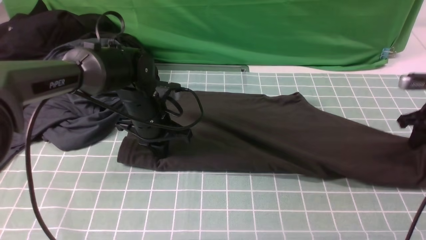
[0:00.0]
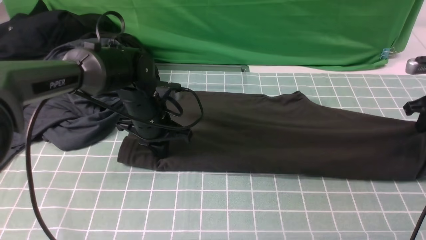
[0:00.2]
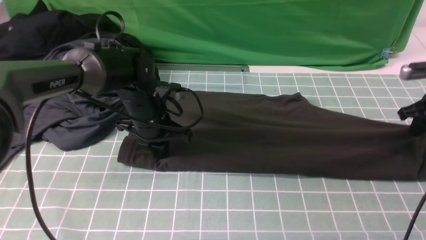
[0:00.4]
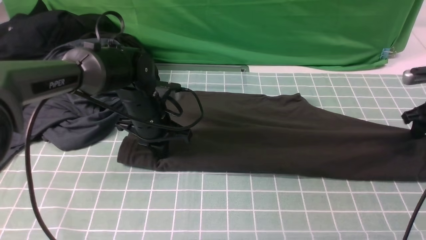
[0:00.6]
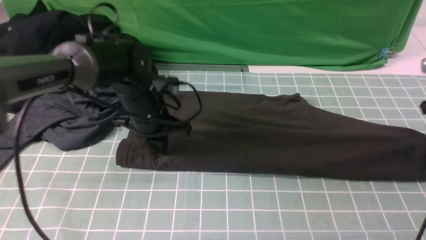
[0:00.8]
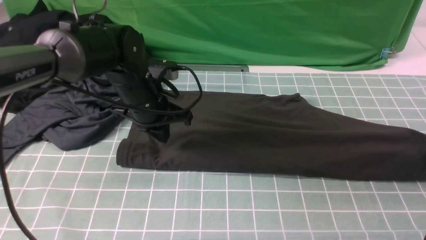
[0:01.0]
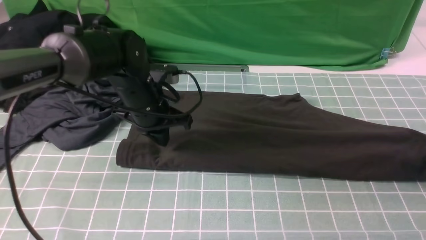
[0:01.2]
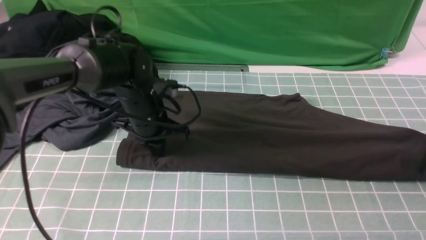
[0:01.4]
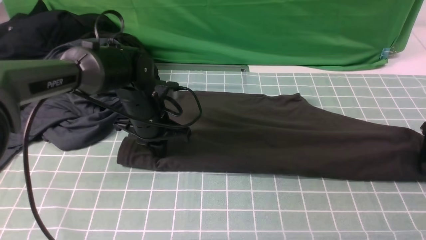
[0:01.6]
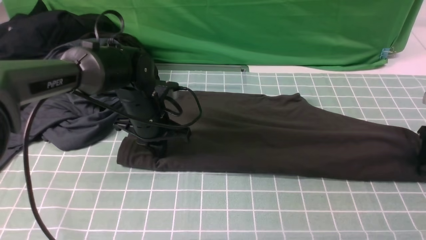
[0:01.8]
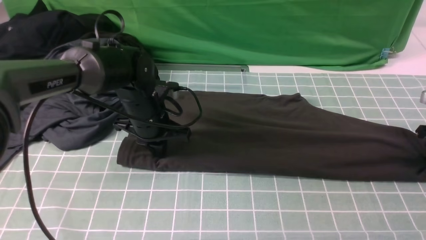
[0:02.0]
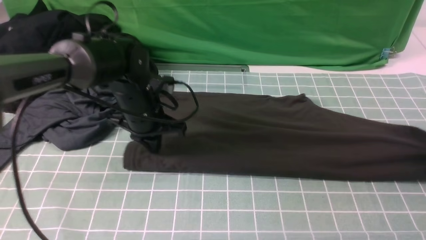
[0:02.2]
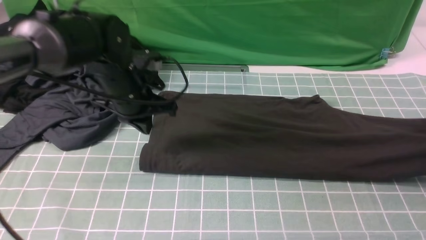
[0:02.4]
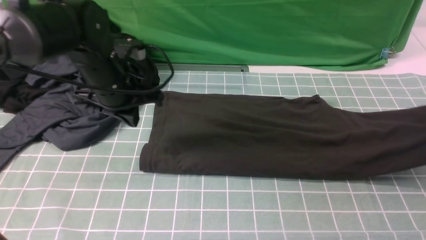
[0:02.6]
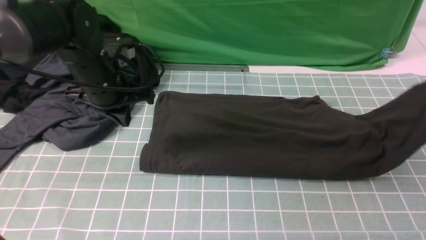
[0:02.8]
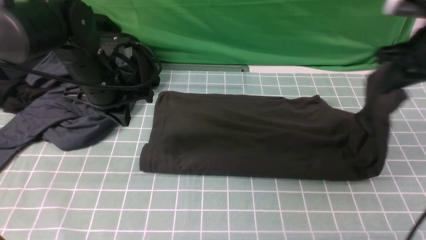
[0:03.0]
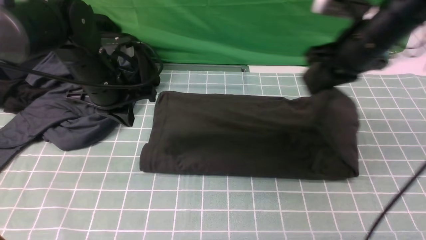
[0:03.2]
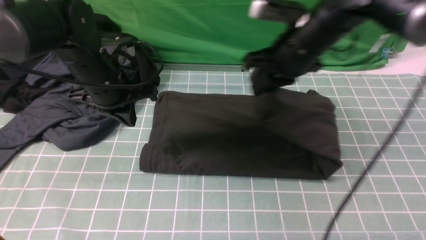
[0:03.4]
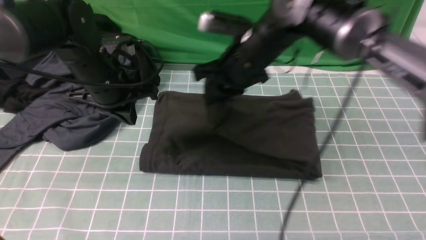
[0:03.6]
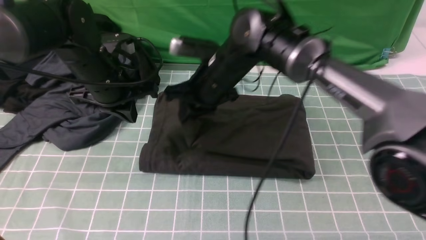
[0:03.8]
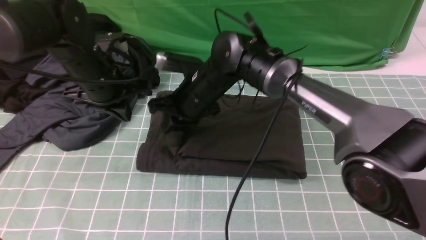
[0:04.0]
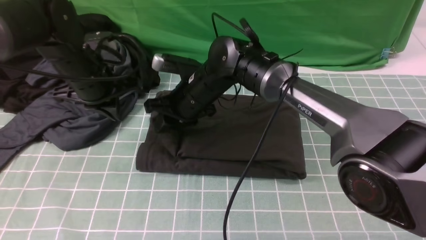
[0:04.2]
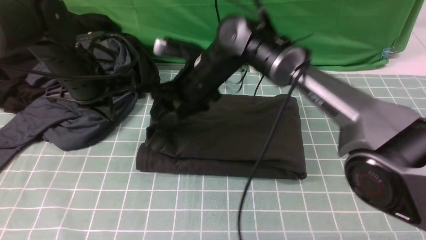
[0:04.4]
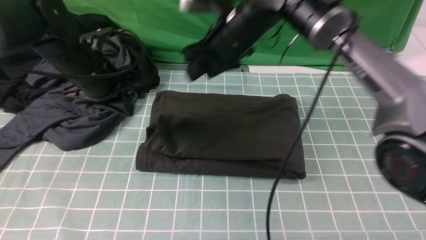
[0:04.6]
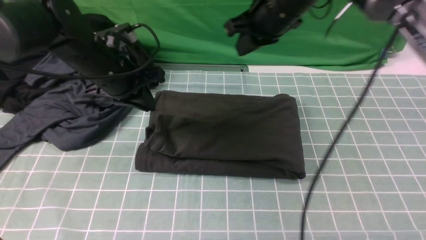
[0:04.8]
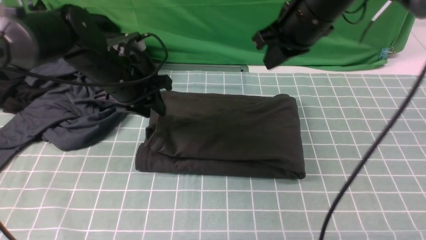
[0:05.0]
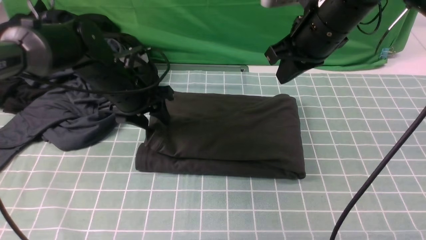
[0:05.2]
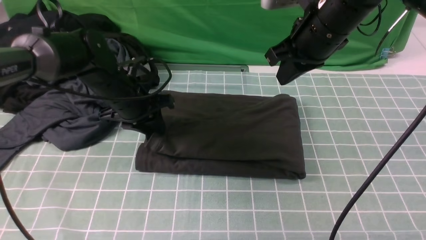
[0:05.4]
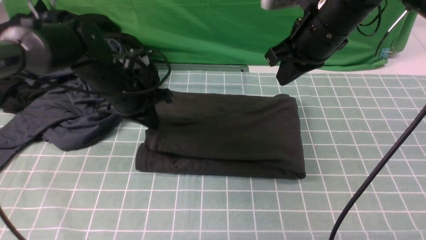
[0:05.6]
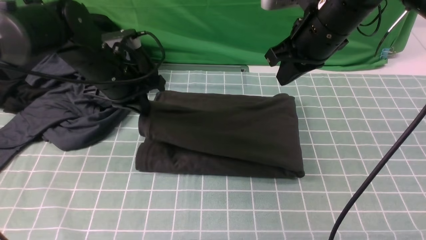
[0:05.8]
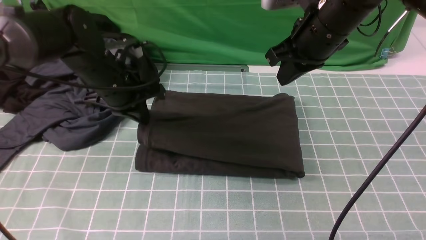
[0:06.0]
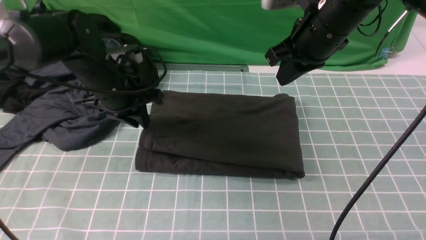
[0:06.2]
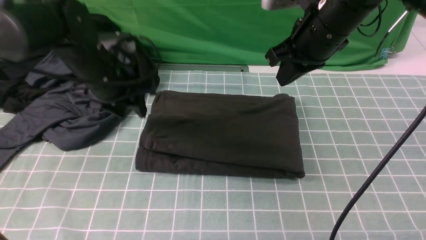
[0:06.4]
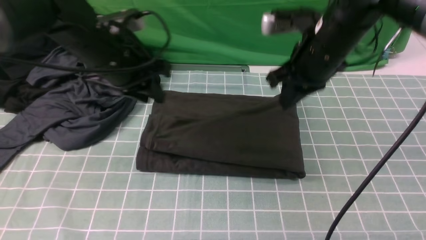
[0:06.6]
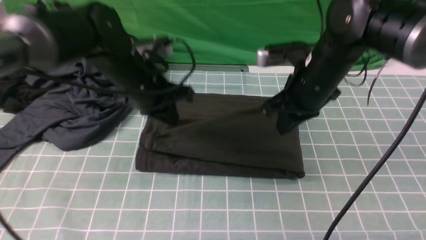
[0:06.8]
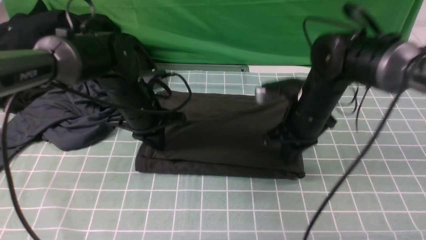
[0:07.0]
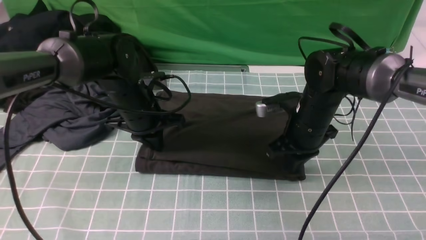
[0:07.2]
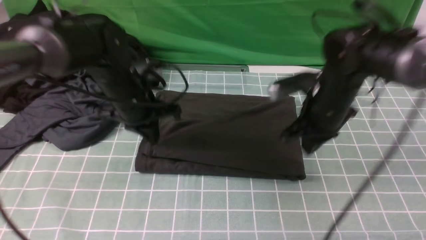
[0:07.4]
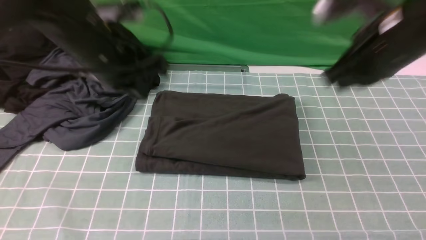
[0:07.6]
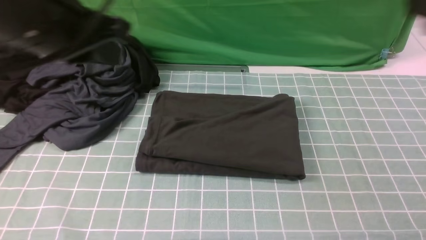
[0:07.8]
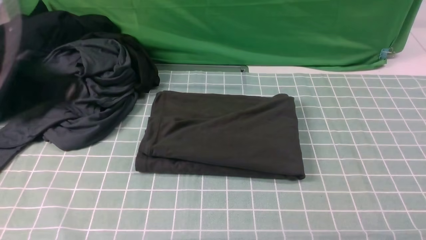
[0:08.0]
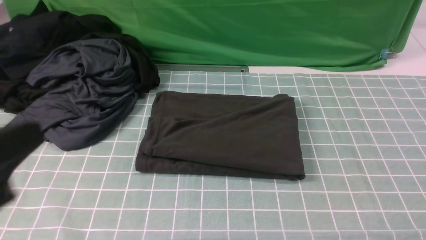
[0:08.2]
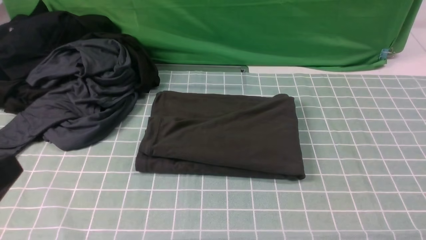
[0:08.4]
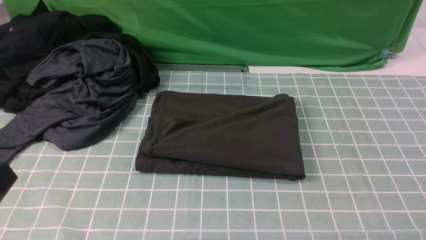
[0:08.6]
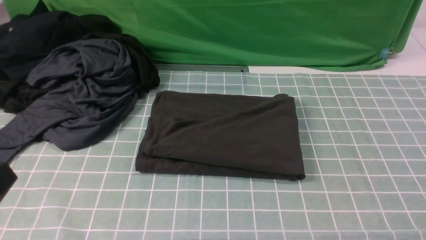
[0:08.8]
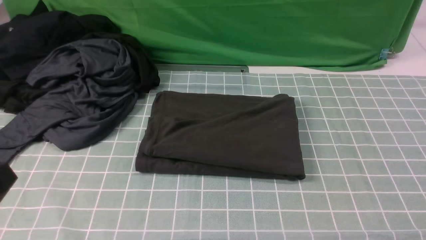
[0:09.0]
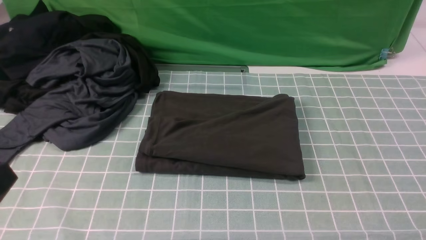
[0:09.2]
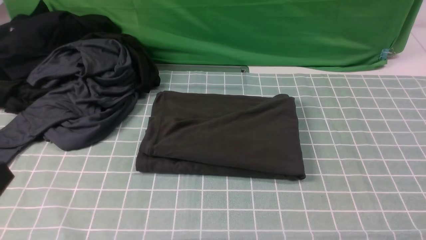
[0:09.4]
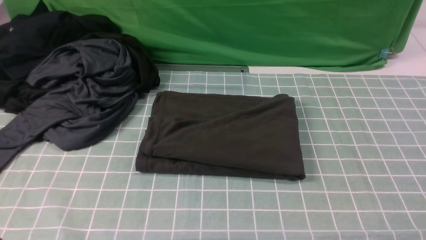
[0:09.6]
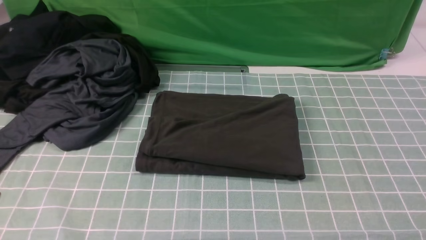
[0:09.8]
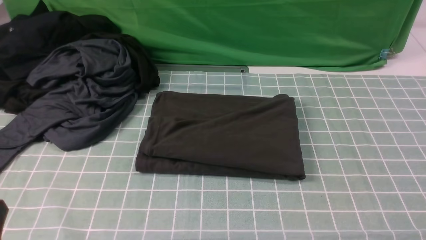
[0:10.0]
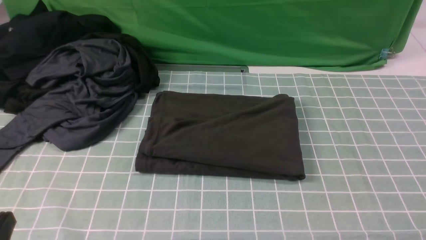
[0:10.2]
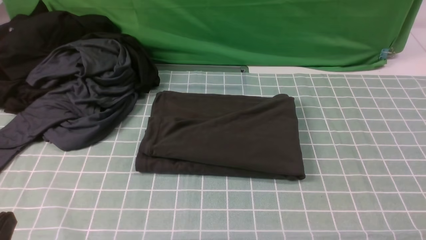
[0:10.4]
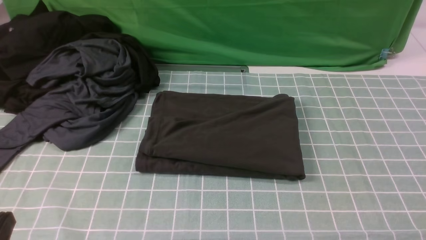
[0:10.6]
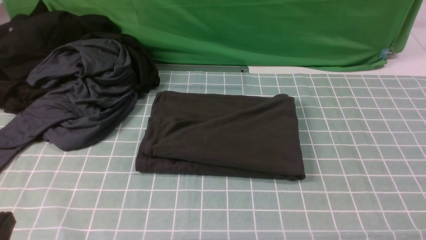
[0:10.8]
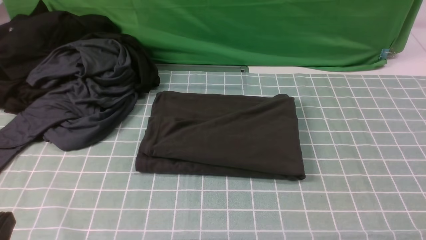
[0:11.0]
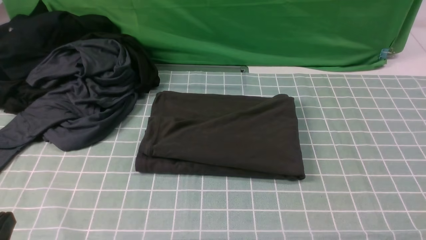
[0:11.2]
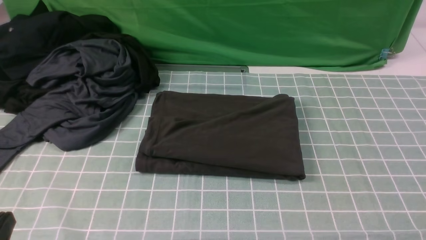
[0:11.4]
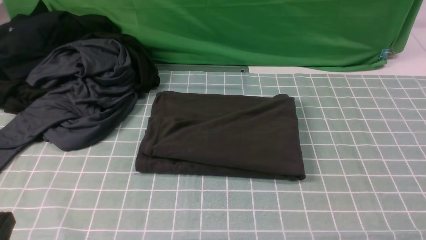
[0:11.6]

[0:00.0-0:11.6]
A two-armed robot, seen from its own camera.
Step, 0:00.0 to 0:02.2: use the right arm to clamp the right edge of the fabric.
Step, 0:02.4 to 0:05.0: use the right arm to drag the right edge of the fabric to the left and folds it over the left edge.
0:00.0 to 0:01.4: The right gripper moves some 5 cm, and opens up.
0:01.4 to 0:02.8: The left gripper is displaced upward and to the left by roughly 10 cm. Meanwhile the right gripper heads upward and to the left, covering some 15 cm, and closes.
0:02.8 to 0:04.4: The right gripper travels to the left by some 35 cm, and opens its fingers.
0:04.4 to 0:05.8: The right gripper heads to the right and upward, covering some 15 cm, and closes its fingers; the left gripper opens, then closes again.
0:05.8 to 0:07.2: The left gripper opens and closes again. Meanwhile the right gripper moves downward, approximately 15 cm.
0:07.2 to 0:08.8: The left gripper heads backward, covering about 35 cm. Meanwhile the right gripper goes about 40 cm backward, to the right and upward.
0:08.8 to 0:10.2: The left gripper is displaced downward by about 10 cm.

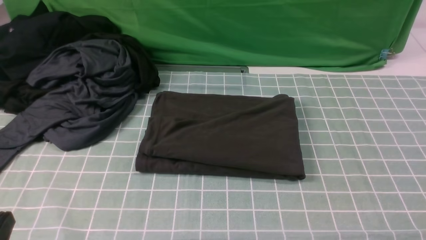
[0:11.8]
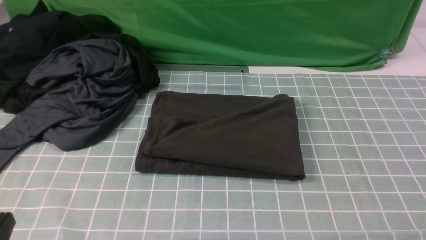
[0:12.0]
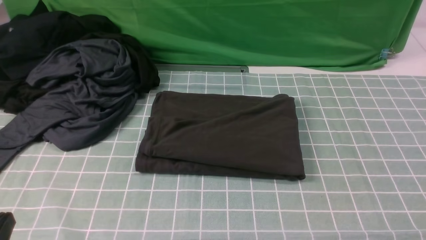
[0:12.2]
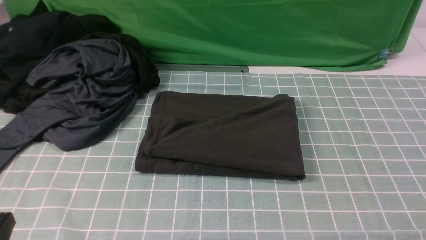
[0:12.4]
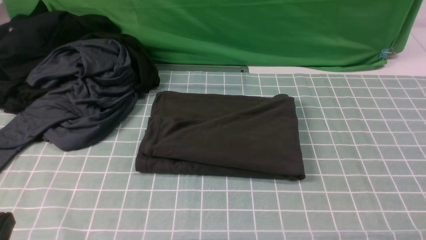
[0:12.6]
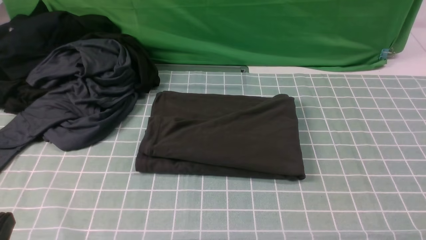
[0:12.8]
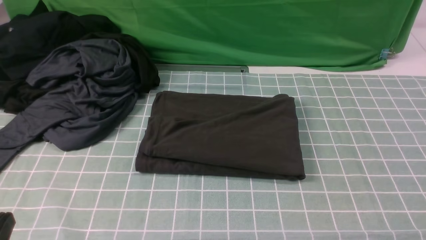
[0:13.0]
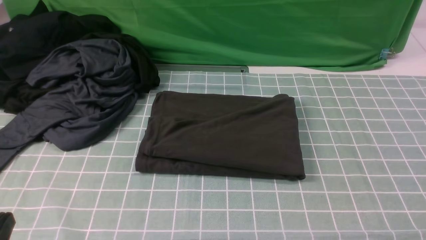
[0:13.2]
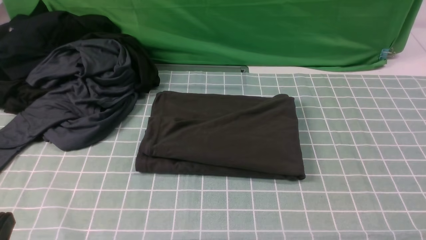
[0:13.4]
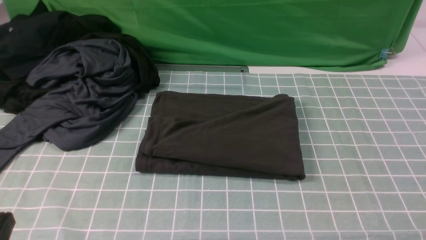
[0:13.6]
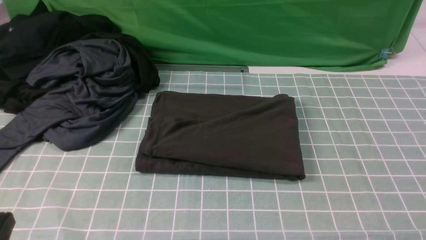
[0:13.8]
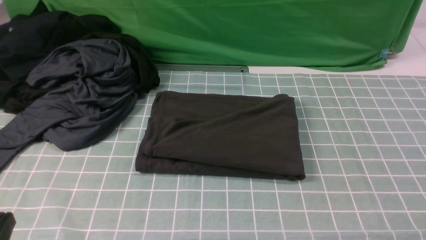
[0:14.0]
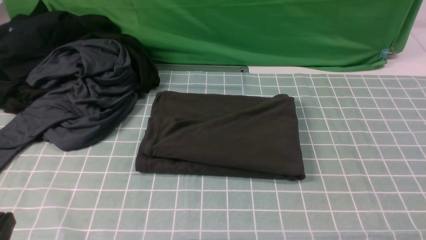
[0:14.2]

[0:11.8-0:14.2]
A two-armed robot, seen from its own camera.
0:11.8 to 0:14.2: Both grippers stay about where they are.

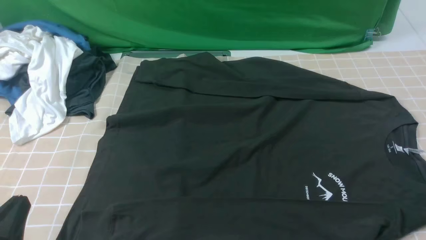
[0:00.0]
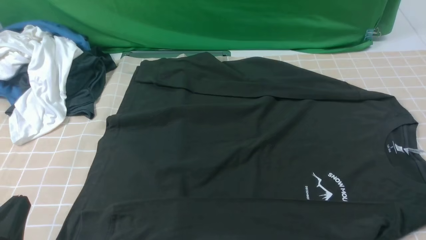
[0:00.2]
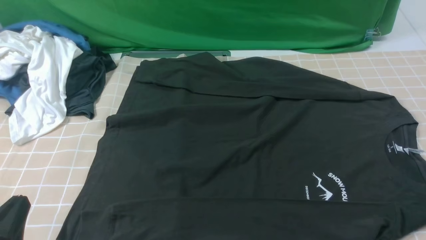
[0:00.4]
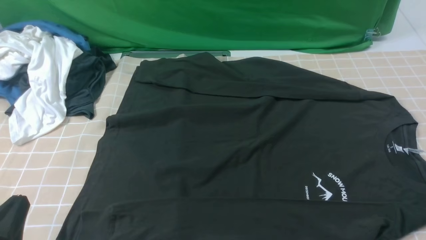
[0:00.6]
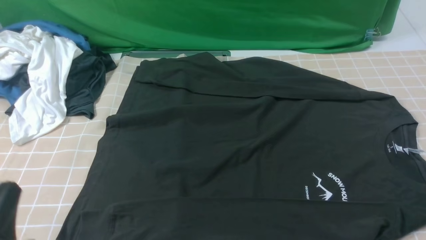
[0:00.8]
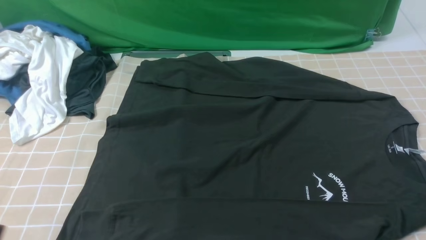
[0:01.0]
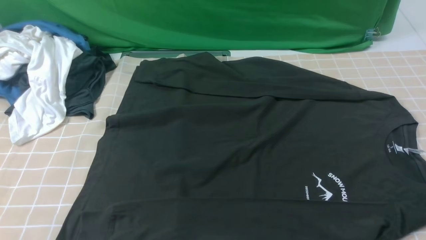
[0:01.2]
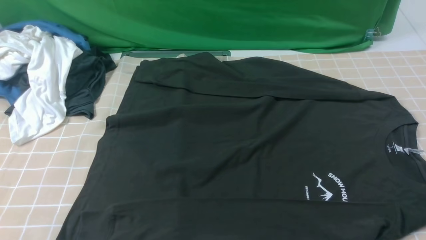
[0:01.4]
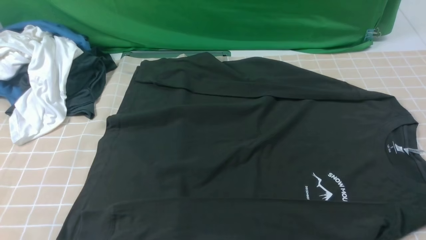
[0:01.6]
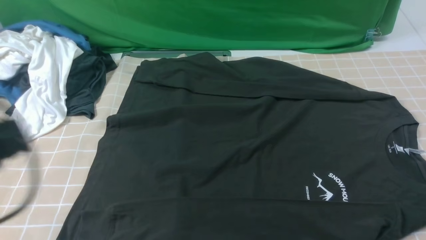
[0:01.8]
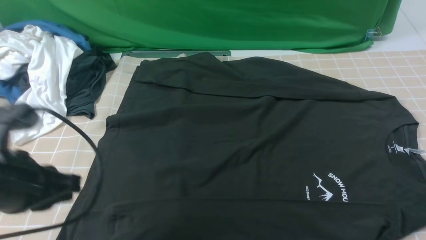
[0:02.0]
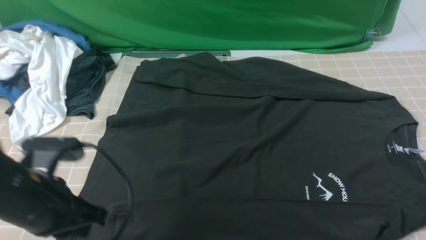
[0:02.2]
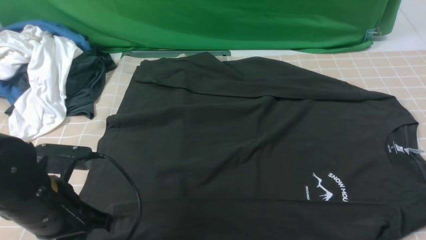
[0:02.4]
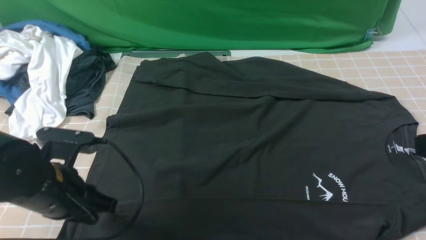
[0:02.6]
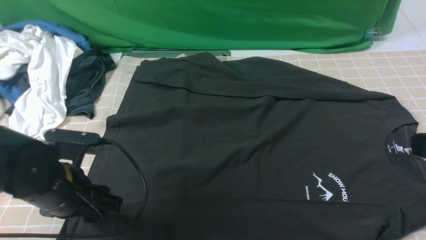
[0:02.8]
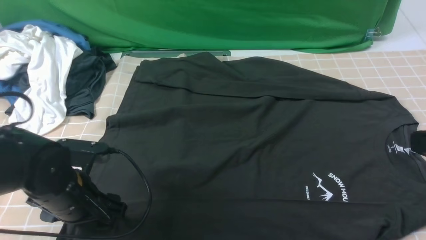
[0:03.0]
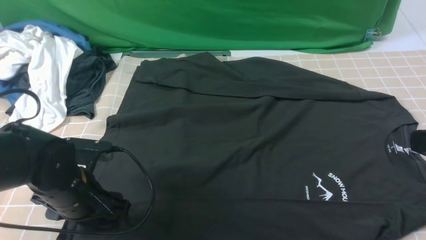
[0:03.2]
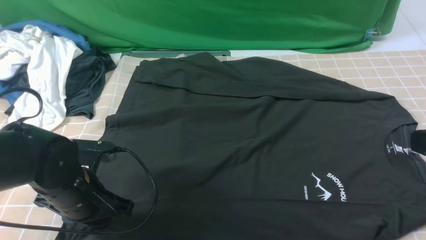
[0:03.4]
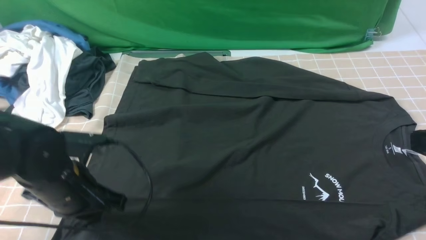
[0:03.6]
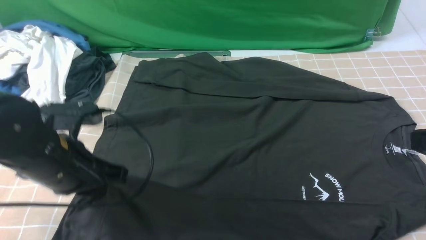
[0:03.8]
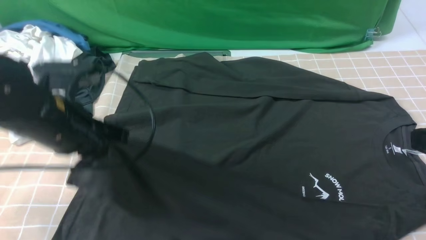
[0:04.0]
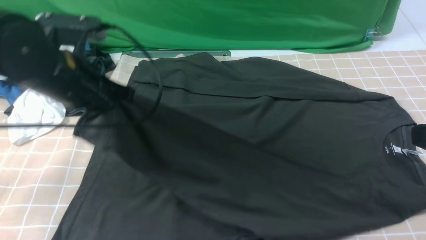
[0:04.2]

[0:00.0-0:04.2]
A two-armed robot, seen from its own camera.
Step, 0:00.0 to 0:03.4: use the left arm to clamp the cuff closest to it.
0:00.0 to 0:01.4: The left gripper moves upward, about 10 cm.
0:01.4 to 0:02.8: The left gripper goes about 20 cm forward and downward, and opens, while the right gripper is displaced upward and forward by roughly 15 cm, and closes its fingers.
0:02.8 to 0:04.2: The left gripper travels upward and forward by roughly 15 cm, and closes up.
